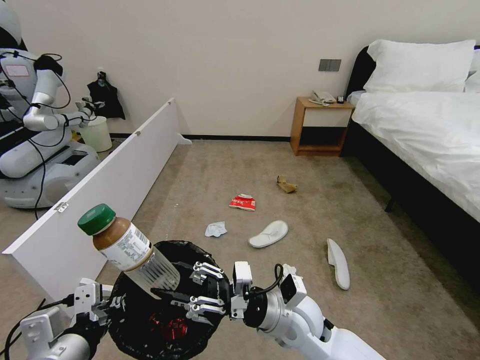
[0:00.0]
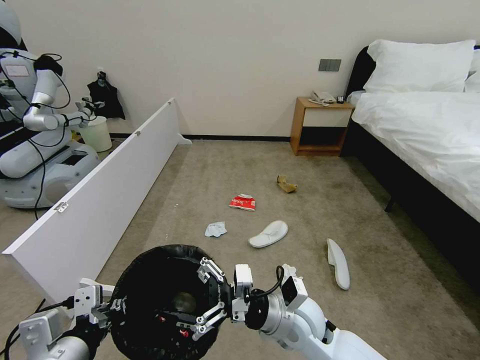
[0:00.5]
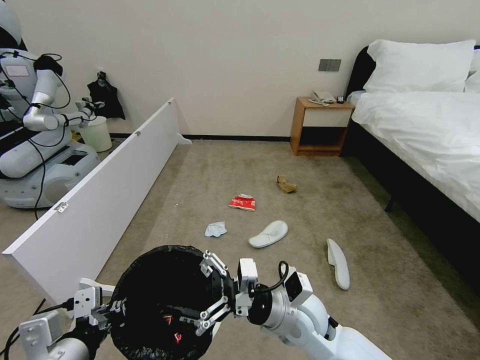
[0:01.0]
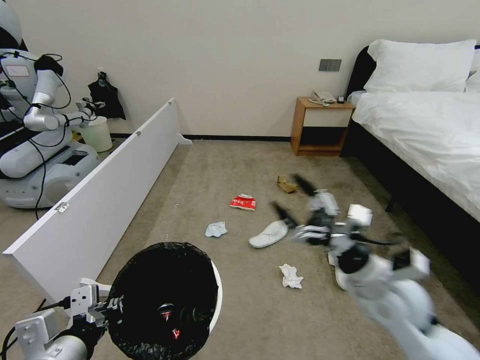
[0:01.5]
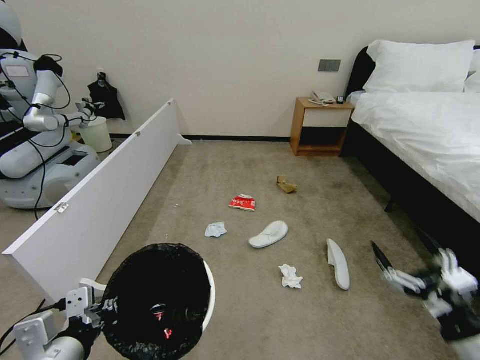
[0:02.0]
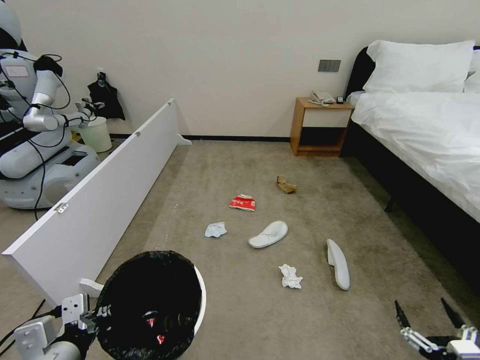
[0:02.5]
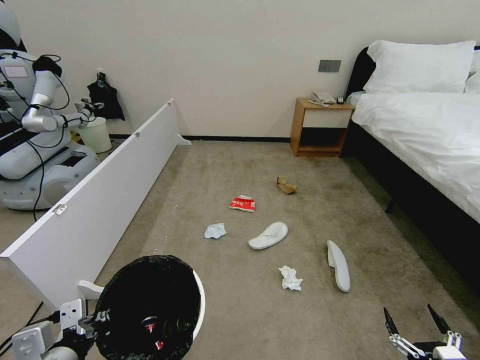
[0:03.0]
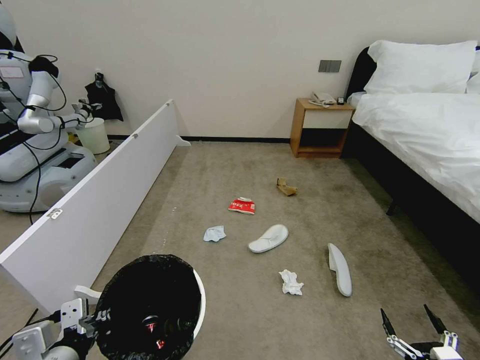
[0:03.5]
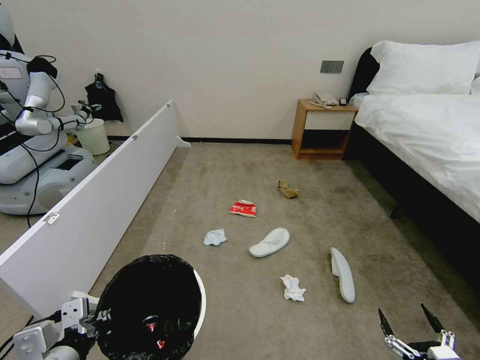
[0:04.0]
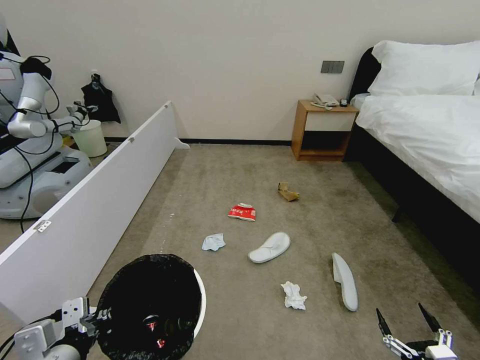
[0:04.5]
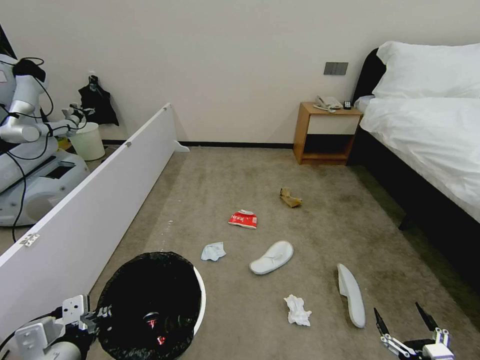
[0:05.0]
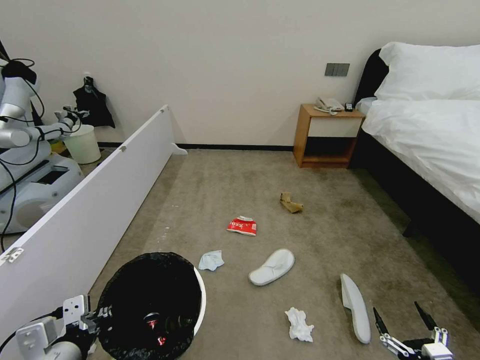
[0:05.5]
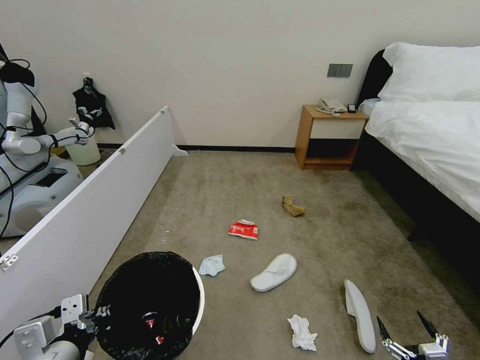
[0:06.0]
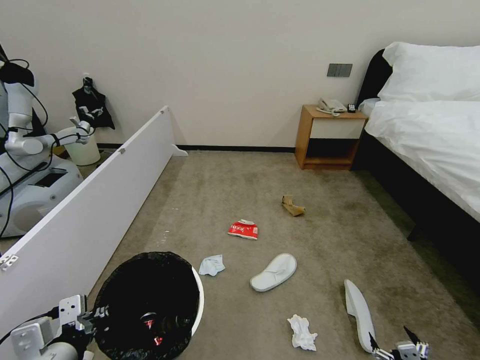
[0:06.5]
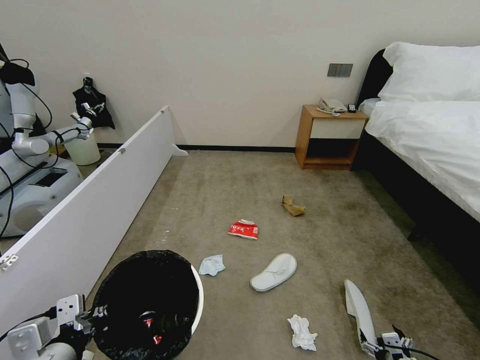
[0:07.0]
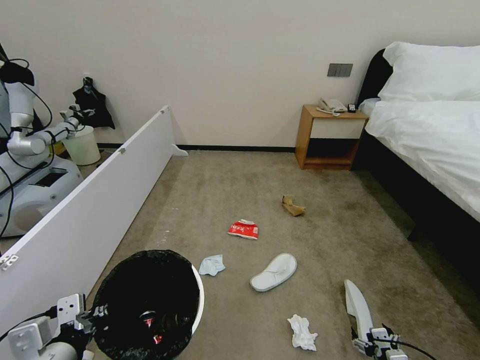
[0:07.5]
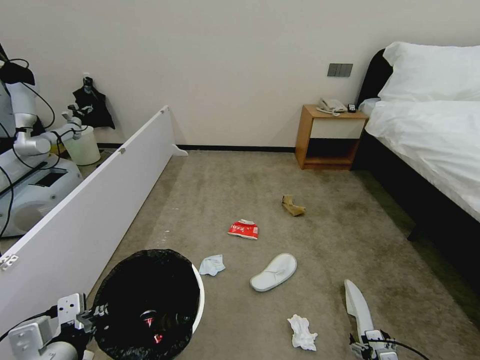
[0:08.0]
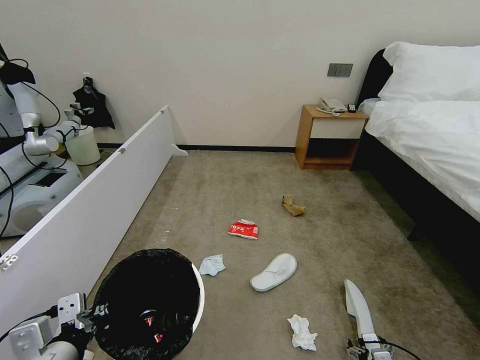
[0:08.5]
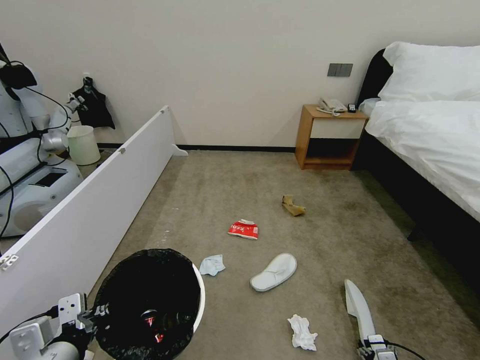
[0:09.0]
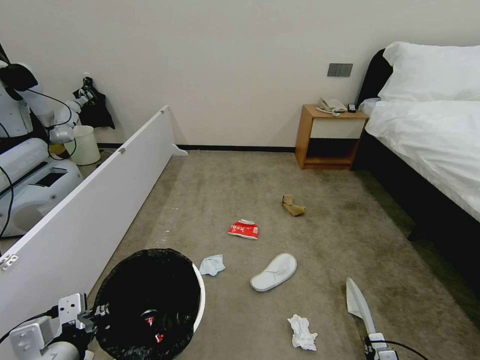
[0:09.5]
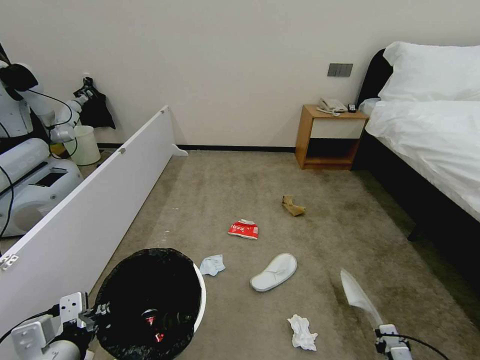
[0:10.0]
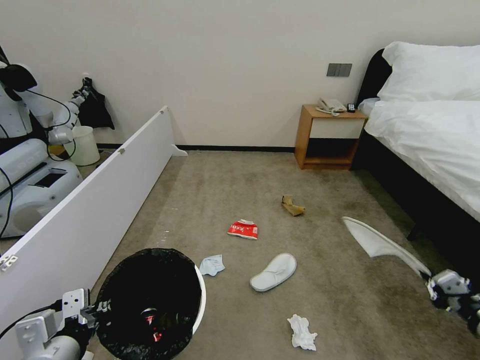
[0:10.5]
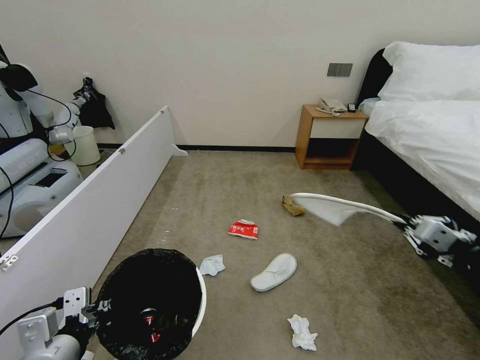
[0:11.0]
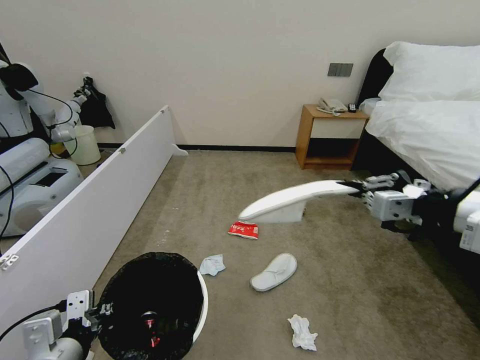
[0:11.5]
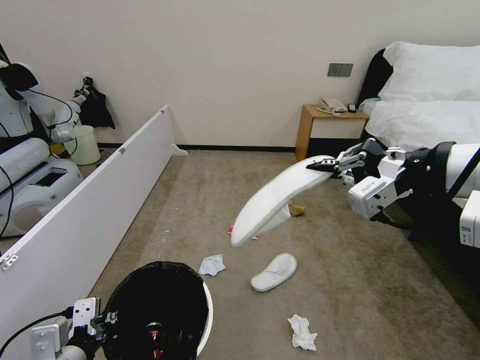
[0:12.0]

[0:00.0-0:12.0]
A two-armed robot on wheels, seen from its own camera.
Task of the whole recording: Pick up the trash bin, then pick up the garbage from the floor and place it into the trash bin.
0.0 to 2.0 s: The right gripper moves to the right and backward, some 30 cm, and opens up.
2.0 to 4.0 s: The right gripper shifts roughly 20 cm downward and backward.
6.0 to 8.0 s: The right gripper shifts approximately 15 cm forward and downward.
8.0 to 10.0 s: The right gripper closes up.
10.0 to 12.0 s: The right gripper shifts about 60 cm upward.

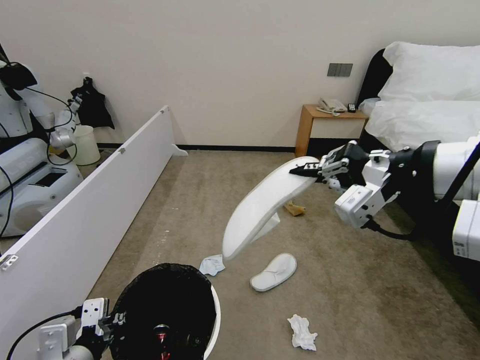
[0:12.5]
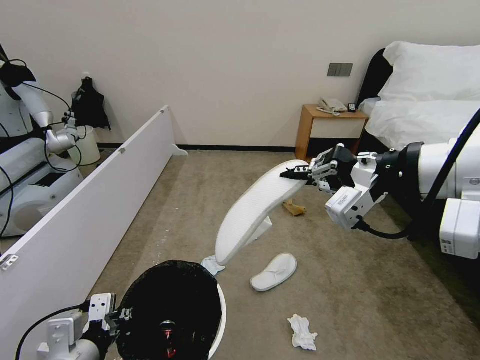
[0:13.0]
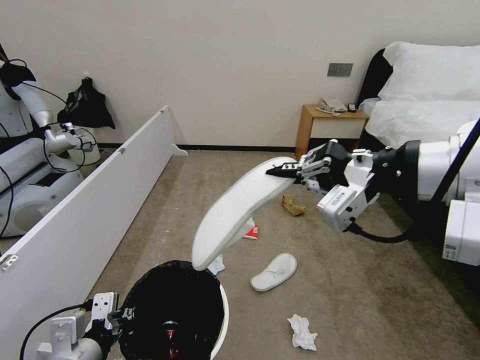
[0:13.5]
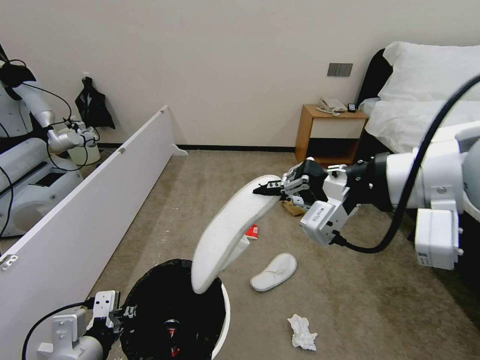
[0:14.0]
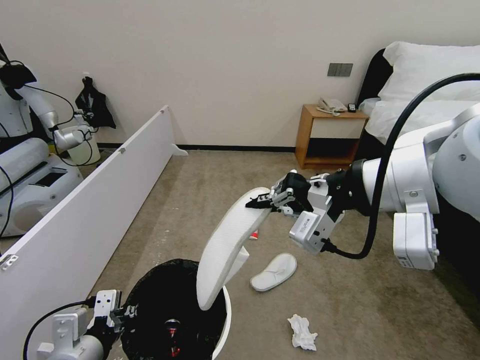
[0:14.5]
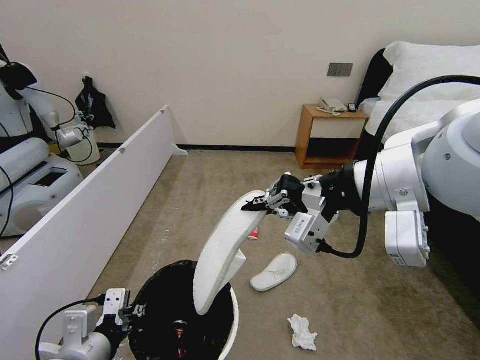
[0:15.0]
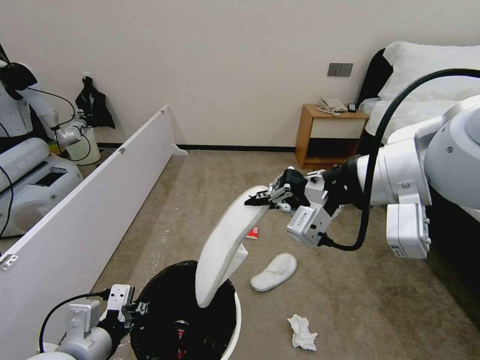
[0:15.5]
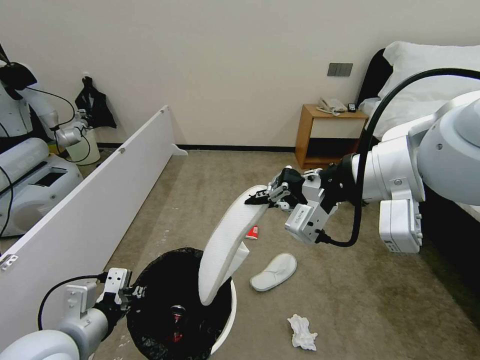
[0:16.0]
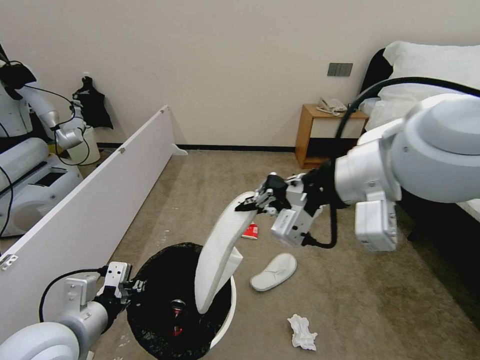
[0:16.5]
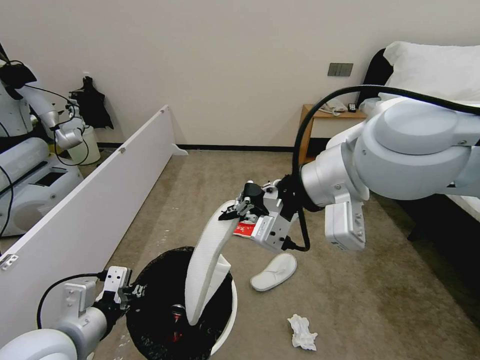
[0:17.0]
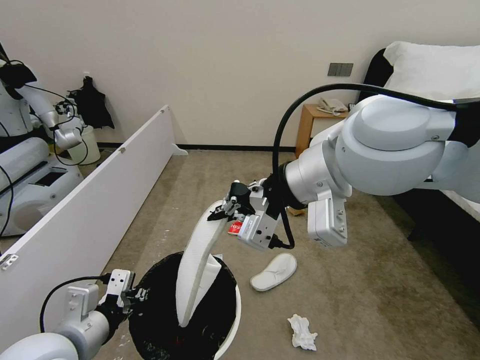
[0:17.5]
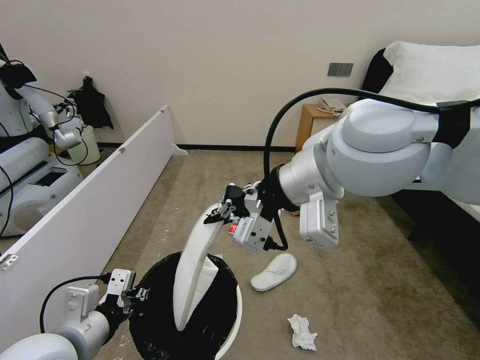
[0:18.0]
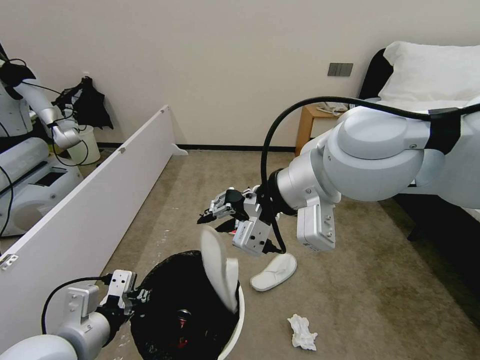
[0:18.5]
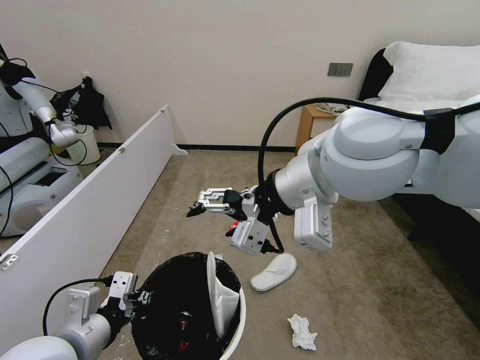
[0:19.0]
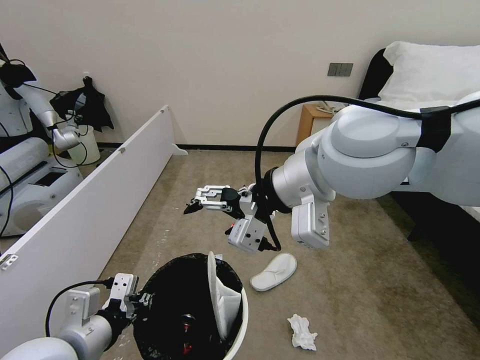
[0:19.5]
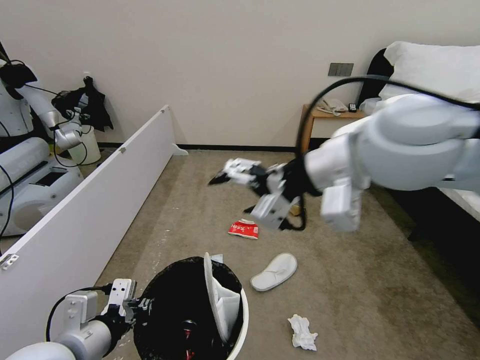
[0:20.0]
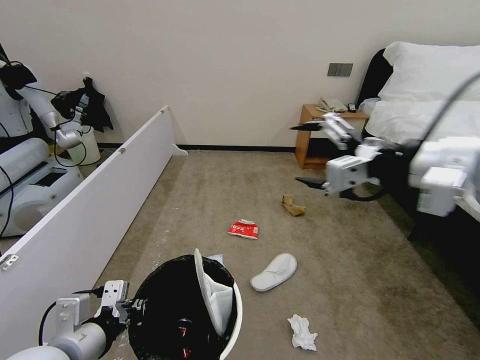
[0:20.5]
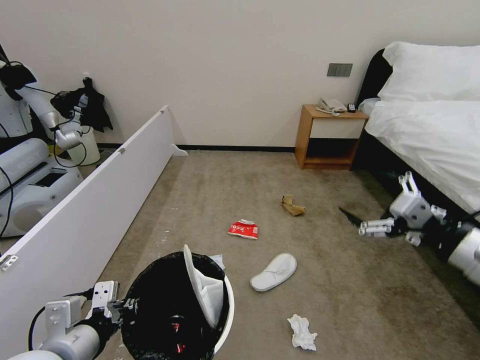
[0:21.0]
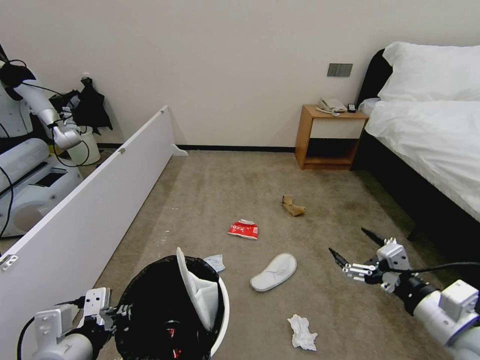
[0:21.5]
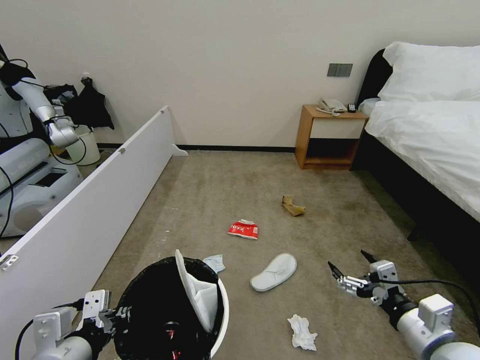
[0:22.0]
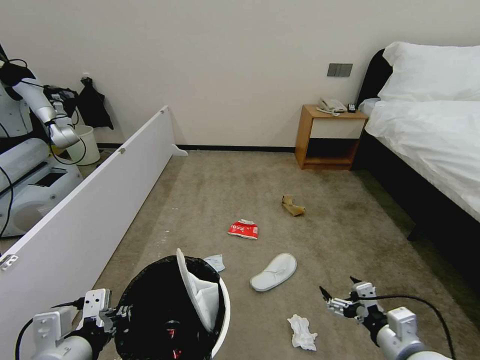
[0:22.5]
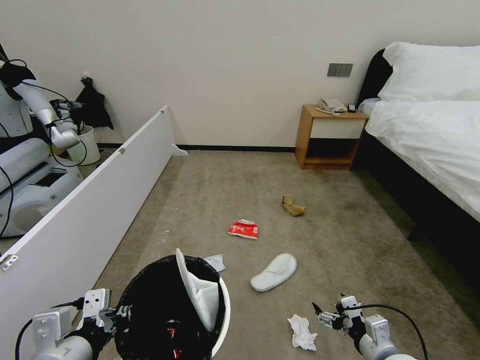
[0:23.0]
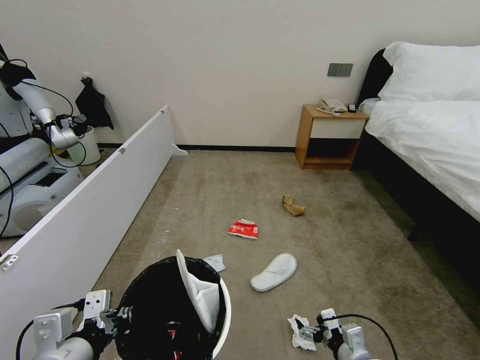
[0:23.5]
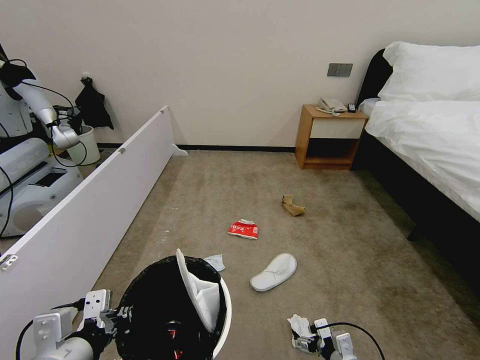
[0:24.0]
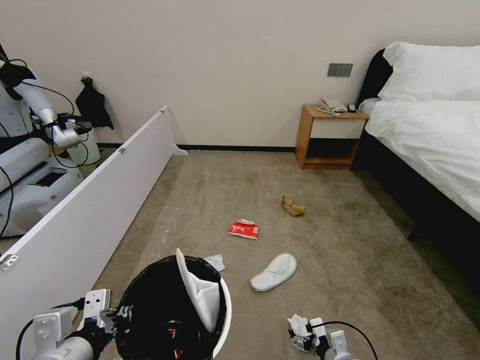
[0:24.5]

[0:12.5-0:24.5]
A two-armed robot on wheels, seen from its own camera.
Task of the whole recording: Pick up the trash bin, then pick up the garbage from the floor and place it into the trash bin.
12.5 to 14.5 s: The right gripper goes about 5 cm to the left.
14.5 to 16.5 s: The left gripper shifts by approximately 5 cm.
16.5 to 18.5 s: The right gripper heads to the left, covering approximately 5 cm, and opens its fingers.
18.5 to 20.5 s: The right gripper shifts roughly 15 cm to the right, and opens.
20.5 to 22.5 s: The right gripper is displaced downward by roughly 40 cm.
22.5 to 24.5 s: The right gripper heads downward, covering approximately 20 cm.

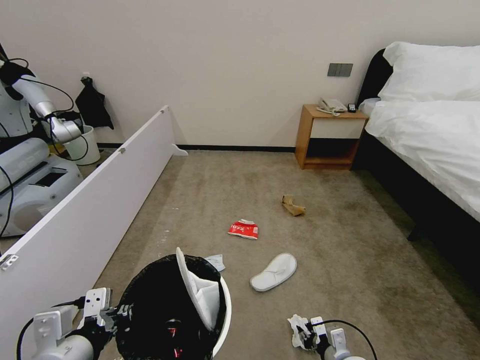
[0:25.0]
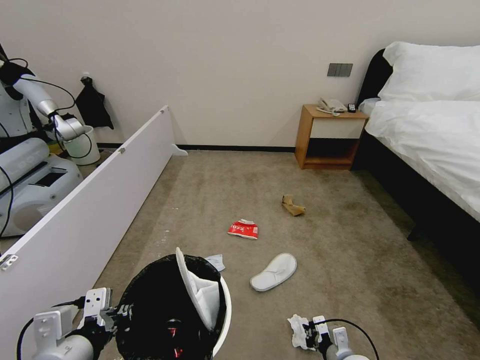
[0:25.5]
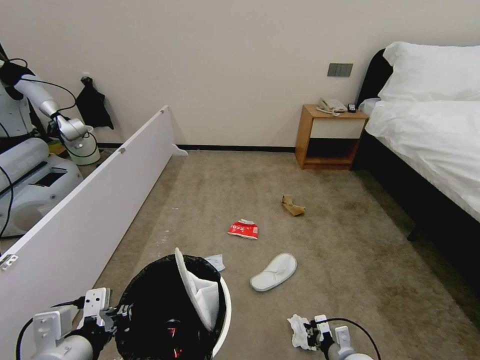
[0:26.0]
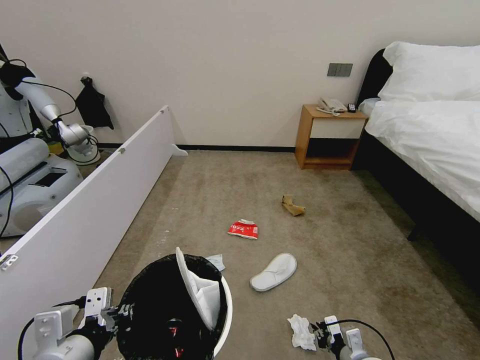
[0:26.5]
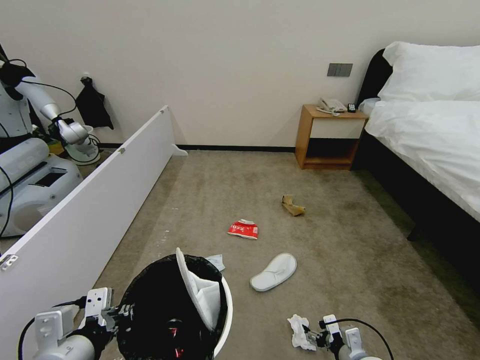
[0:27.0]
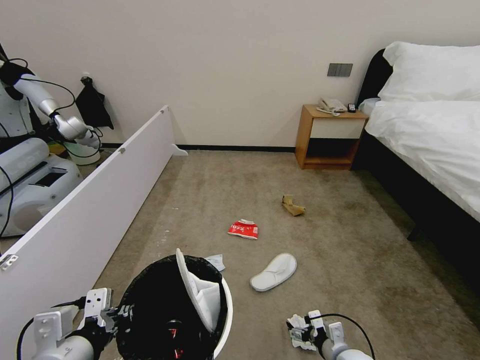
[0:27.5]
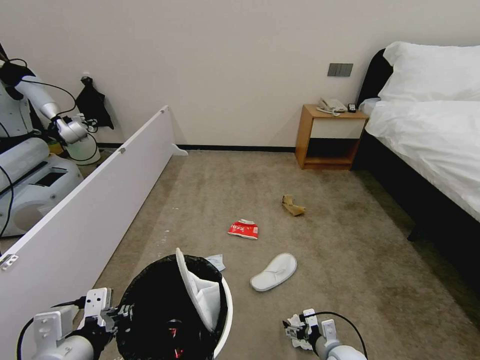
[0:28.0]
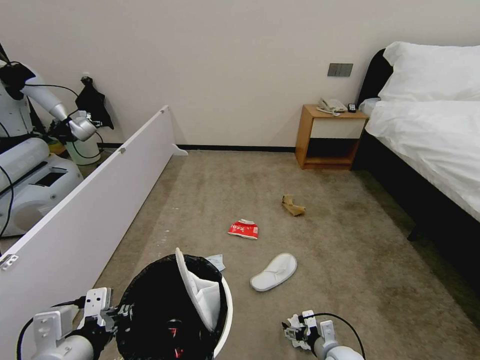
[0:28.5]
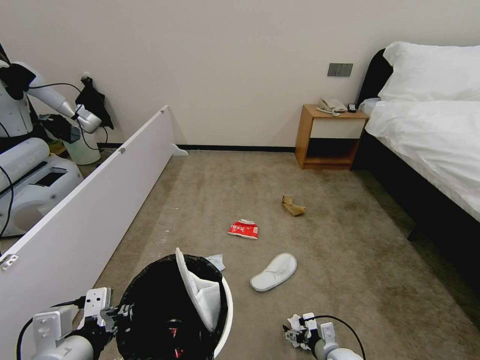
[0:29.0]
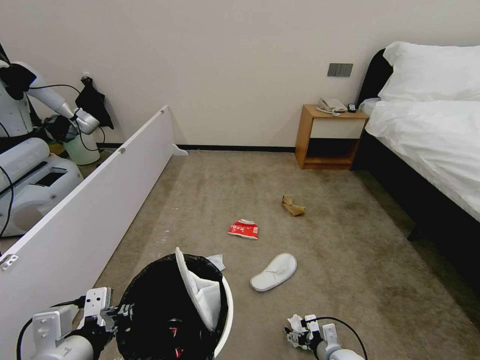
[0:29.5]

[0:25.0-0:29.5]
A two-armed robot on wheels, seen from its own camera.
Task of the whole recording: Pick up the trash bin, then pick up the garbage from the floor and place it into the trash bin.
25.0 to 27.0 s: The right gripper opens its fingers.
27.0 to 29.5 s: The right gripper moves roughly 5 cm.
